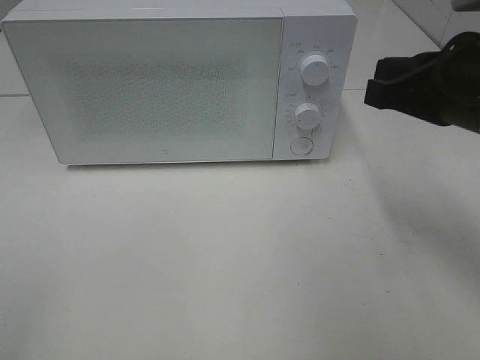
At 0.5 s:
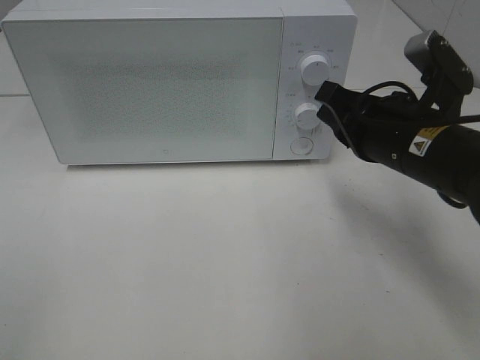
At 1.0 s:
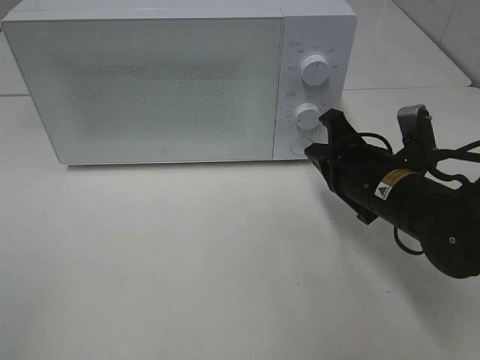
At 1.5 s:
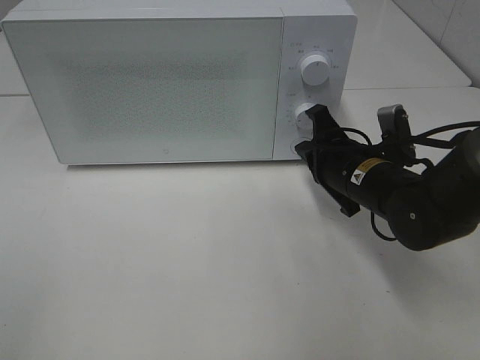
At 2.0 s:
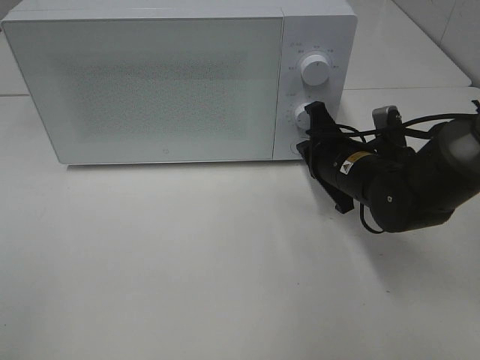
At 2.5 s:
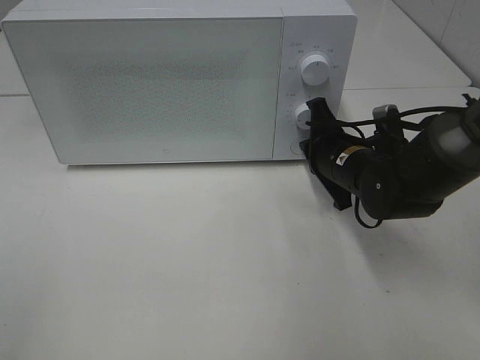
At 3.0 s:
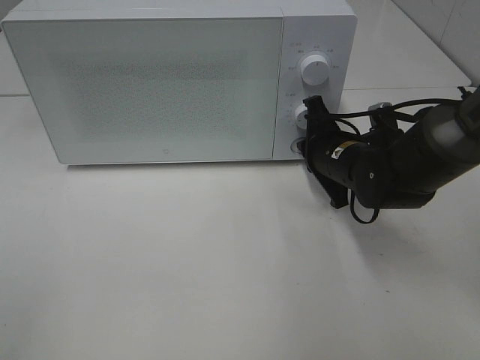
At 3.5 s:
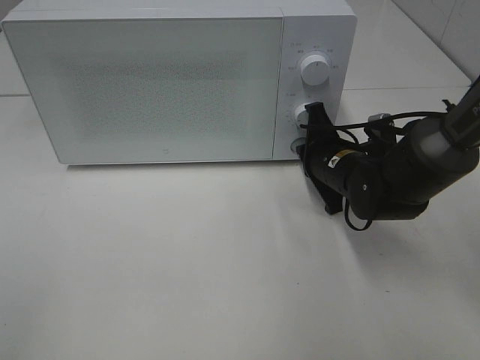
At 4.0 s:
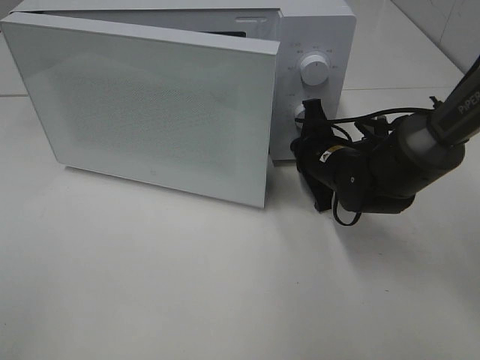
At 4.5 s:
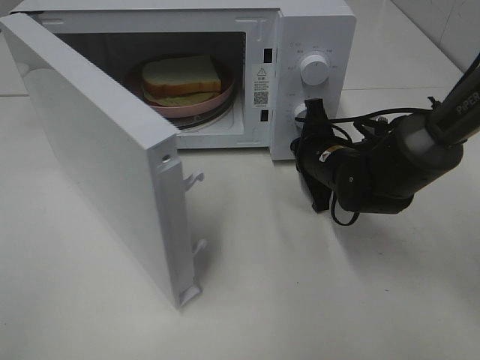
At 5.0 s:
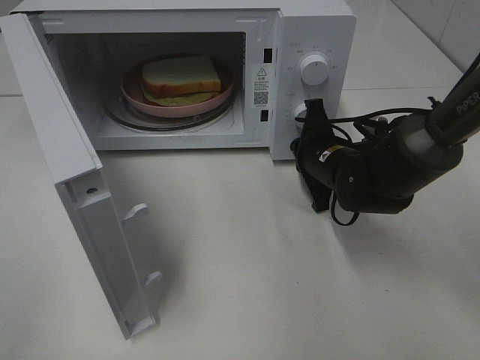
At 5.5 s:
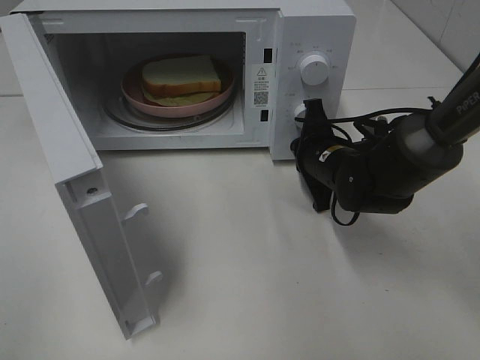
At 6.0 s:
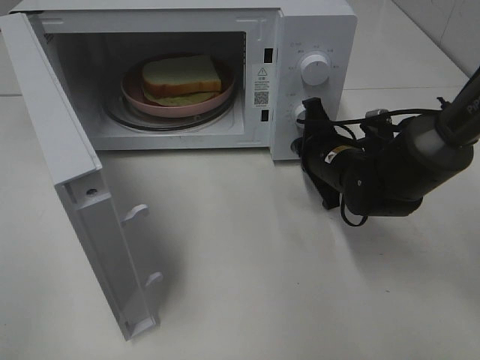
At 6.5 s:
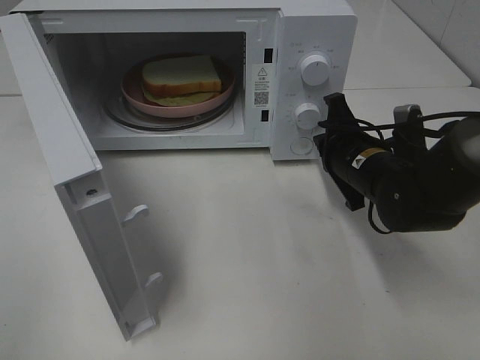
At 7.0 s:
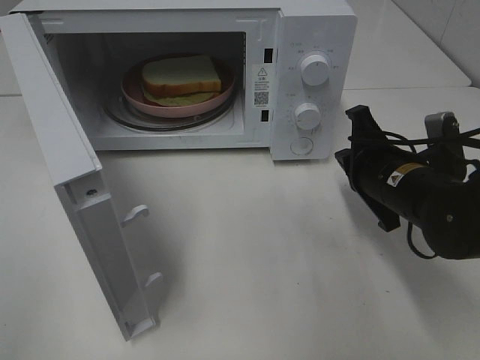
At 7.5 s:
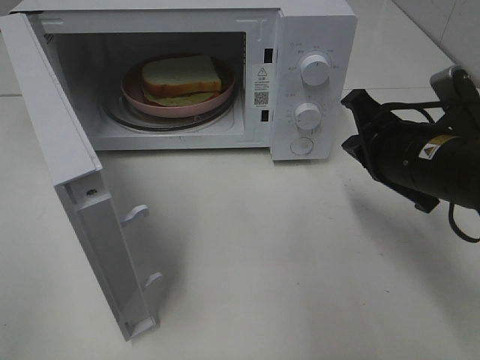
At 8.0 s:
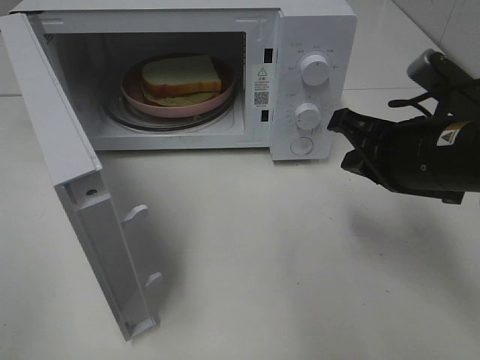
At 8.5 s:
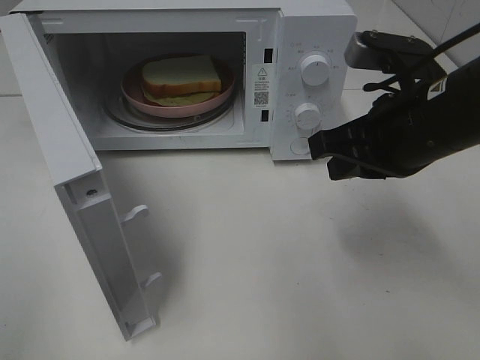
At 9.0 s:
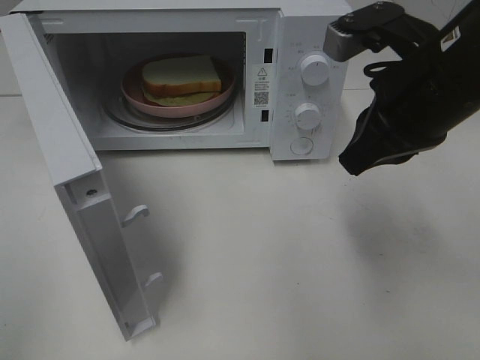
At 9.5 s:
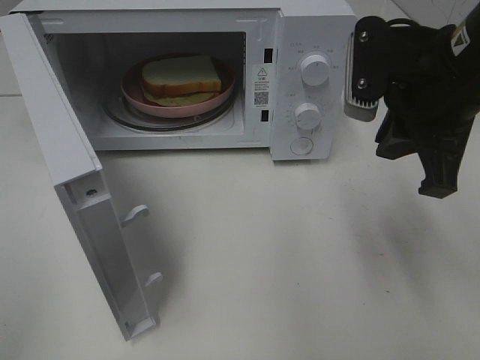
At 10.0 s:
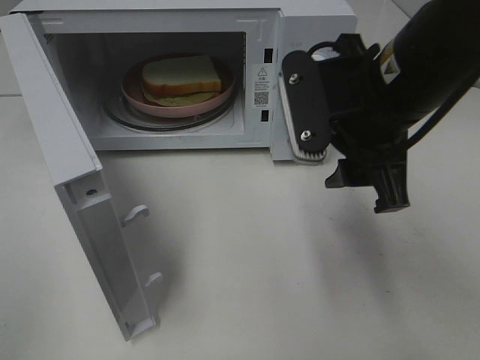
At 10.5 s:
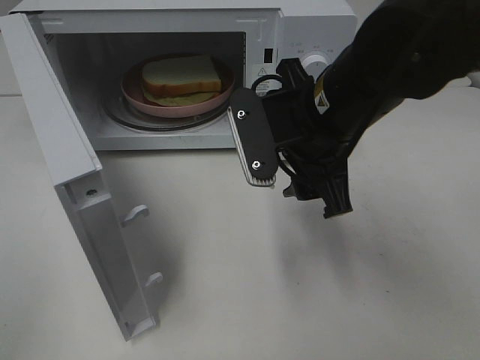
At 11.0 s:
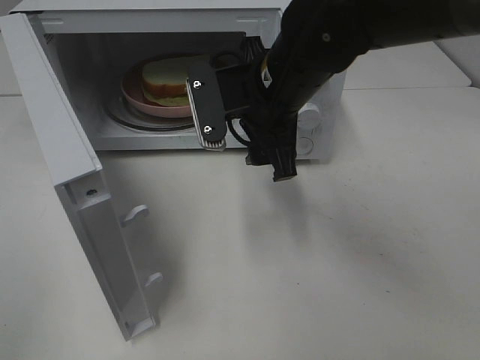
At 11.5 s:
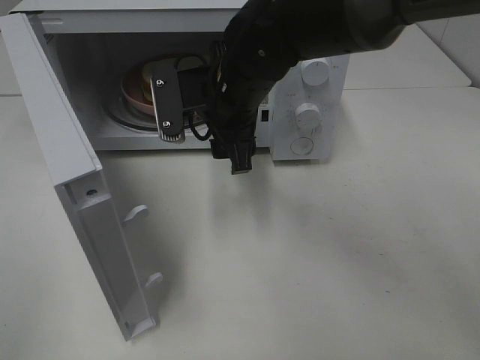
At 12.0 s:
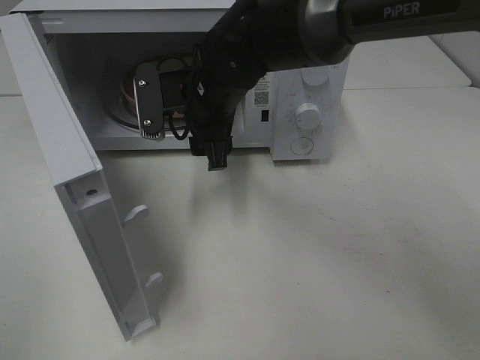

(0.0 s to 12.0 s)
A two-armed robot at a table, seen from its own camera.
Task of the whole recording: Heat Sandwich.
Step, 0.0 s - 6.5 s: Right hand: press the switch.
0.0 s - 2.0 s: The right gripper travels downward and forward by some 20 cm.
2.0 s - 4.0 s: The grippers move only a little.
6.0 s - 8.0 s: The right gripper is displaced backward and upward by approximately 15 cm.
8.0 s - 10.0 s: The right gripper heads to the left and upward, covering about 10 cm, and opens its fingers.
10.0 s - 12.0 s: The right gripper is displaced to the left, forward and downward by approximately 20 cm.

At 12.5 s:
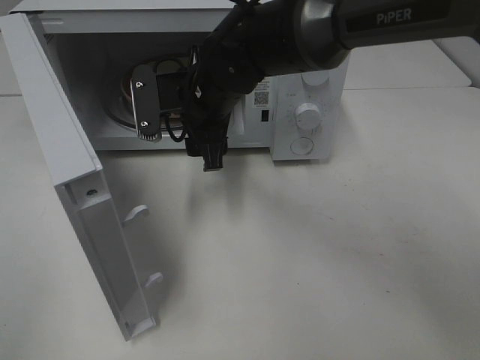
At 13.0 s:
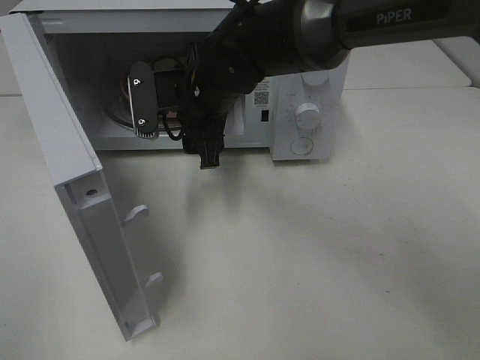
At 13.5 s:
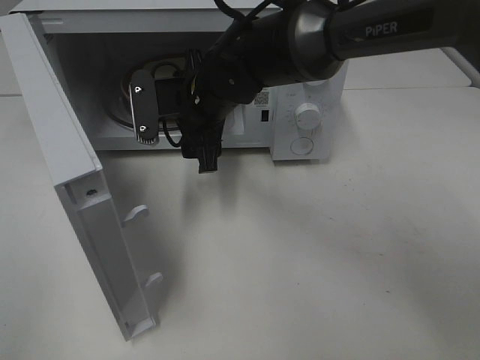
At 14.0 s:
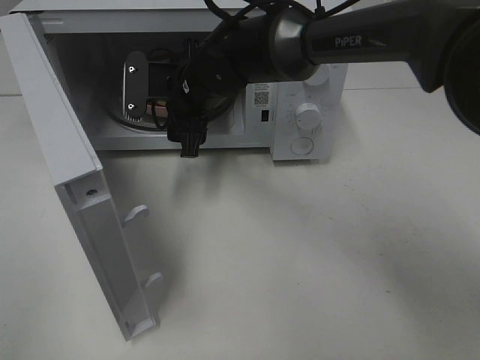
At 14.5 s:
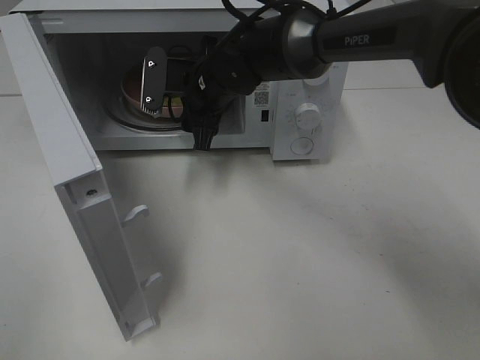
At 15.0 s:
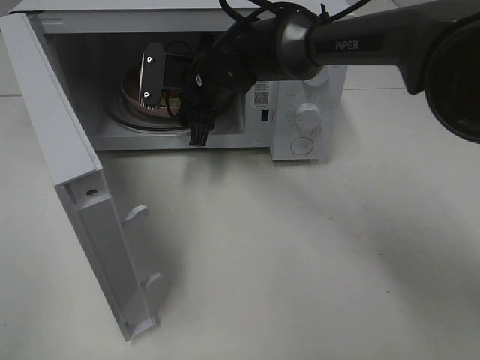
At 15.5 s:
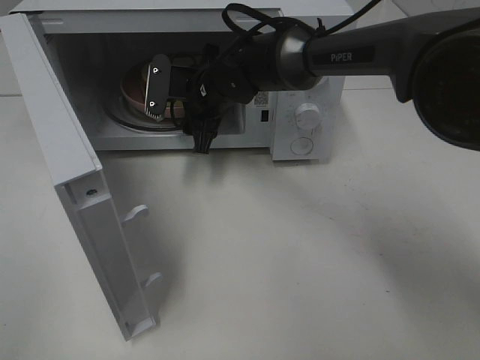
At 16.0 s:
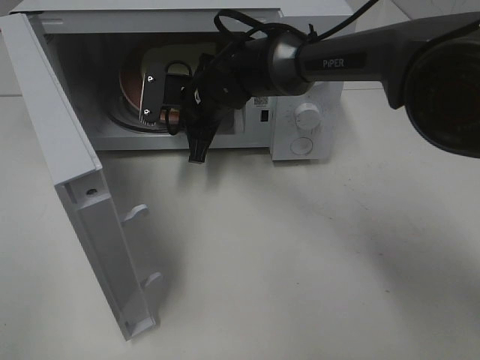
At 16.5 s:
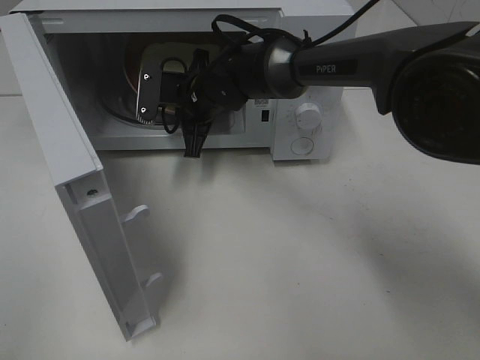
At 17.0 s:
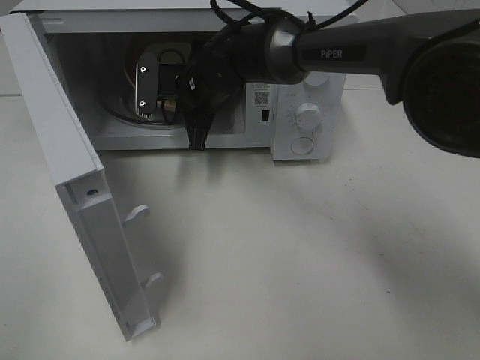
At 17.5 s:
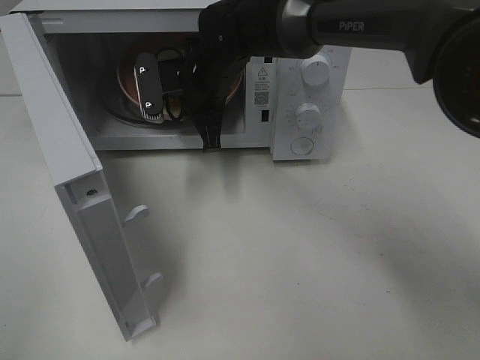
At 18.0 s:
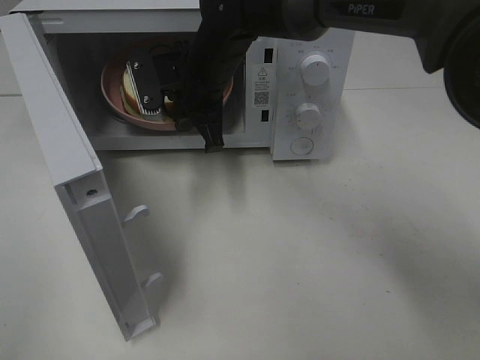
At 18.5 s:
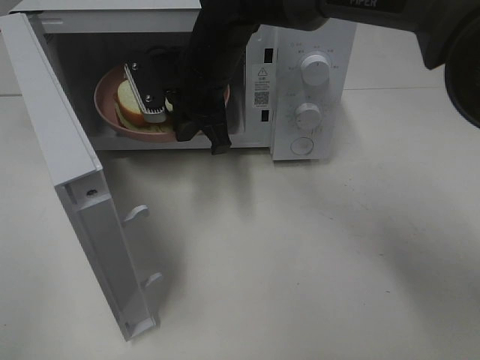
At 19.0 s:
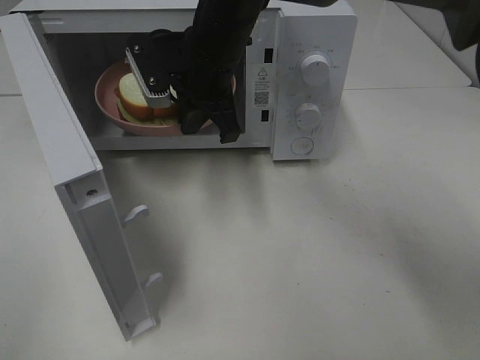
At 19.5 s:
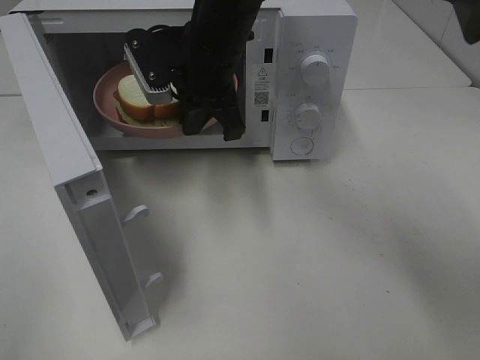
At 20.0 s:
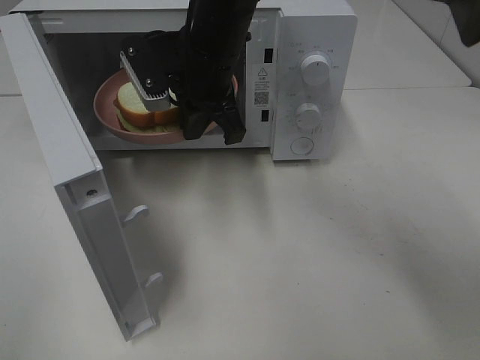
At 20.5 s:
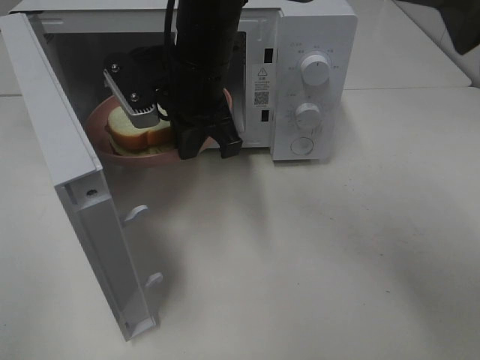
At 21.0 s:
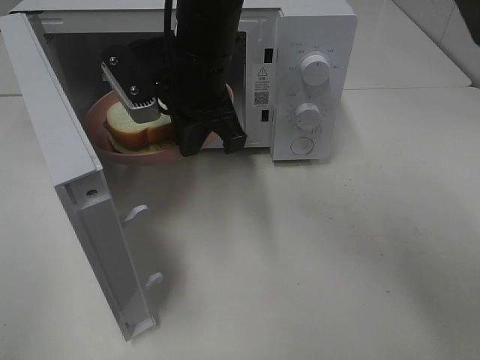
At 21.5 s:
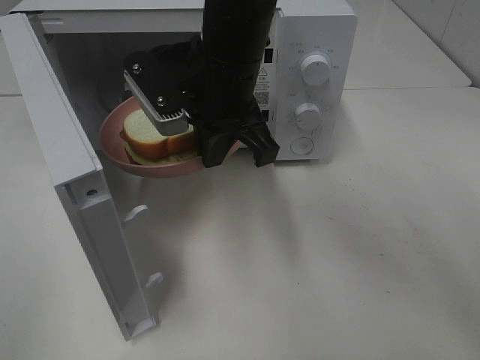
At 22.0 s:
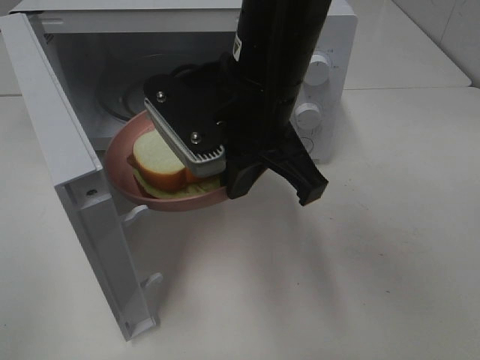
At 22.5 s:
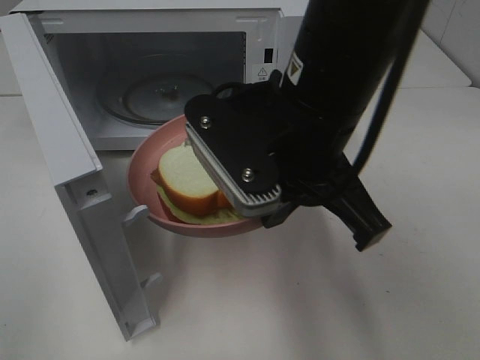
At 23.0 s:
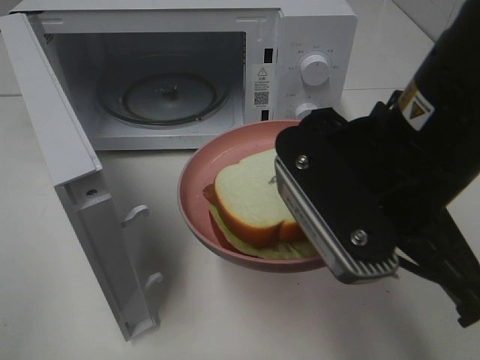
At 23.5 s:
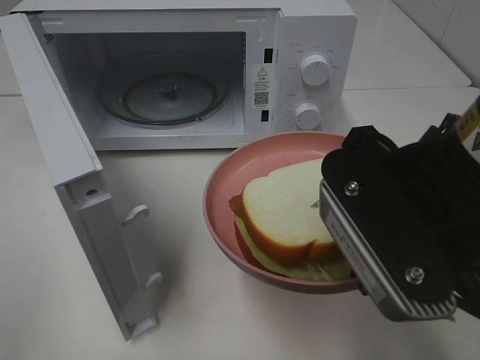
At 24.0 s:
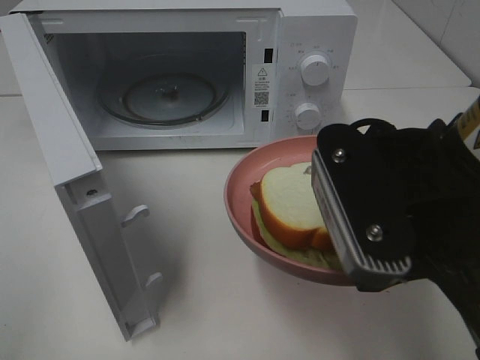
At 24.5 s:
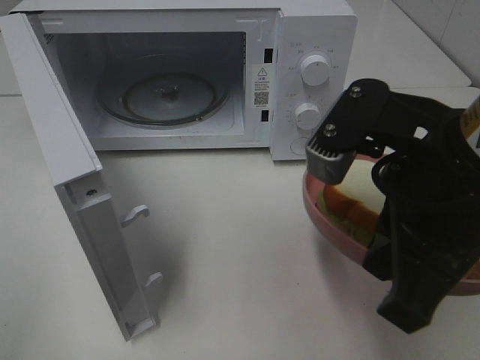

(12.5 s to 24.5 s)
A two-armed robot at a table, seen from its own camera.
Task of the whole recording: Heat Sandwich.
Step, 12.5 s - 16.5 s: Right hand: grab the plate with the sandwich.
12.5 s - 14.5 s: The right gripper is displaced forward by about 5 cm.
14.5 s - 16.5 s: The right gripper closes.
16.5 s - 18.5 s: The right gripper travels upward by roughly 5 cm.
18.5 s - 20.5 s: The right gripper ends up roughly 5 cm from where it was.
20.5 s - 22.5 s: The right gripper heads backward and to the right, covering about 15 cm.
22.5 s - 24.5 s: The right gripper heads to the right and backward, covering about 10 cm.

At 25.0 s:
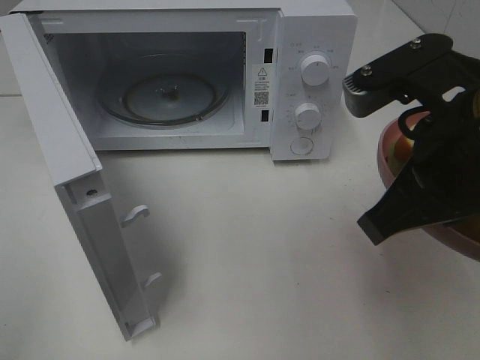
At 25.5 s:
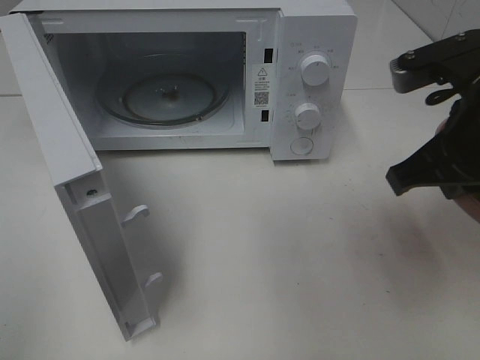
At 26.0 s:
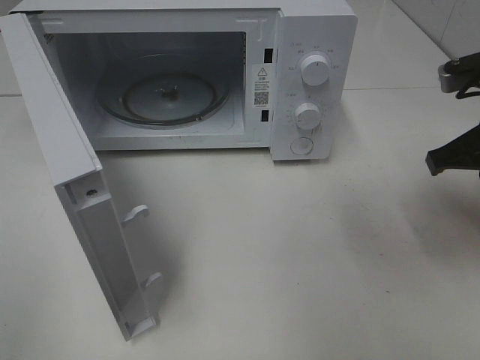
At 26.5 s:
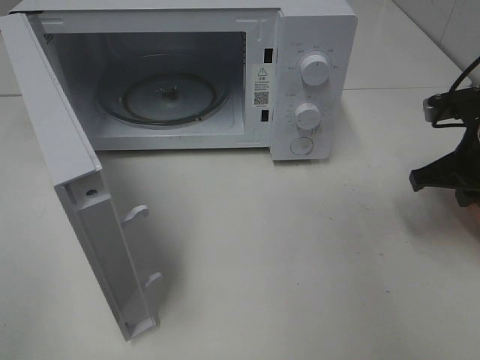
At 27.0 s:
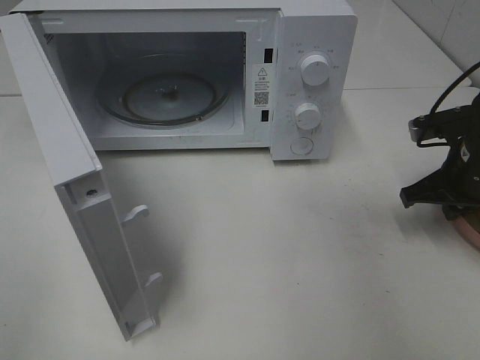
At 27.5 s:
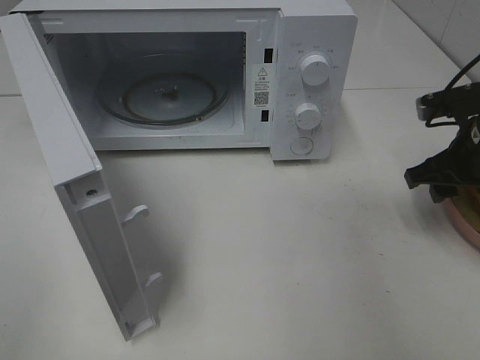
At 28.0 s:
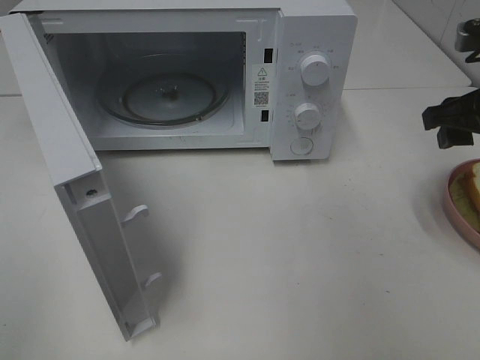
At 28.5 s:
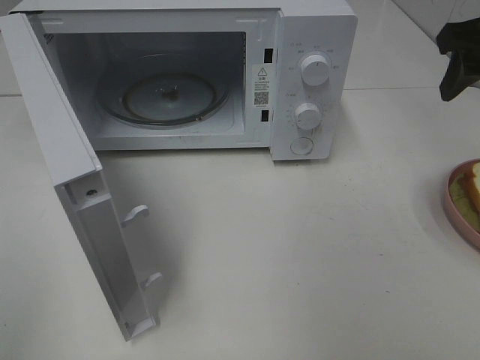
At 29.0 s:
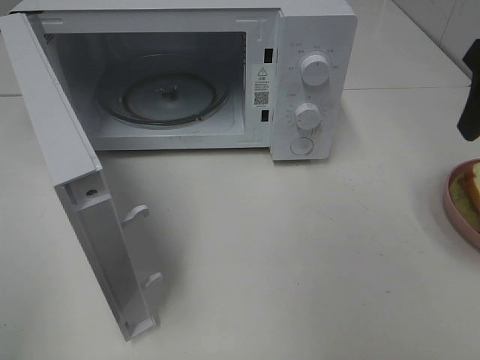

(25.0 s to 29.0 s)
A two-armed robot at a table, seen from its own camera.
Task of the whole recording: Heat Sandwich.
Step, 25.0 s - 28.0 s: Right hand: place the plate on the table.
25.0 s - 27.0 s: The right gripper shifts some 25 cm downward, forward and to the right.
27.0 s - 29.0 s: The right gripper heads upward, covering about 20 cm, and opens its fingers.
